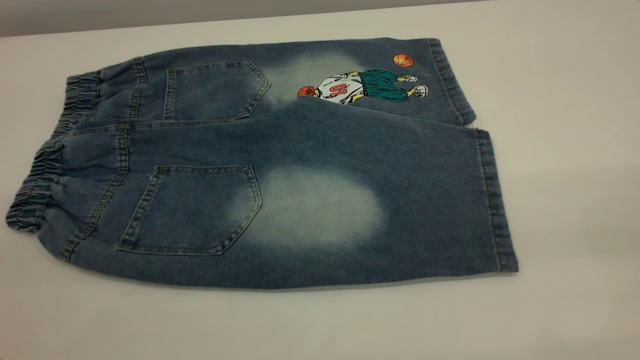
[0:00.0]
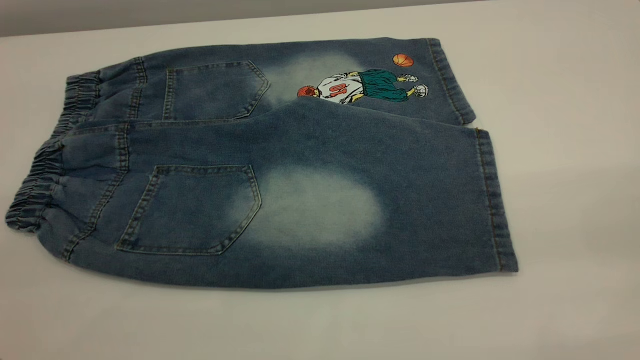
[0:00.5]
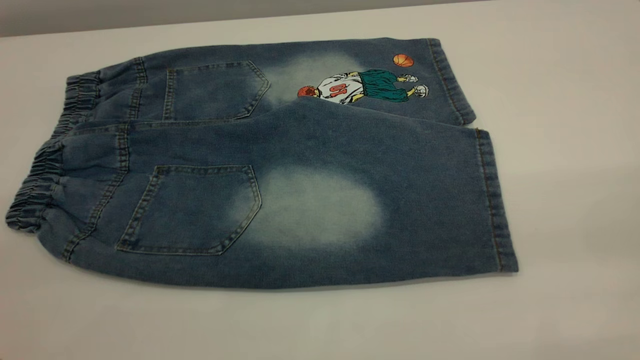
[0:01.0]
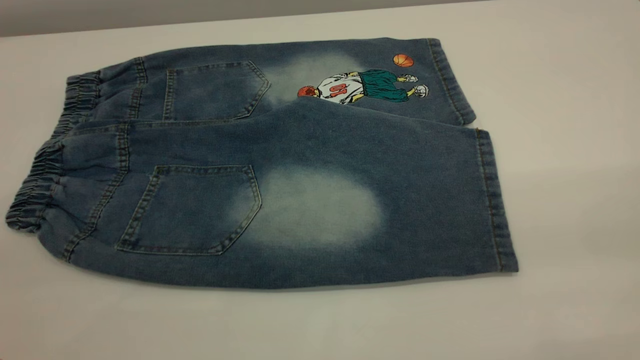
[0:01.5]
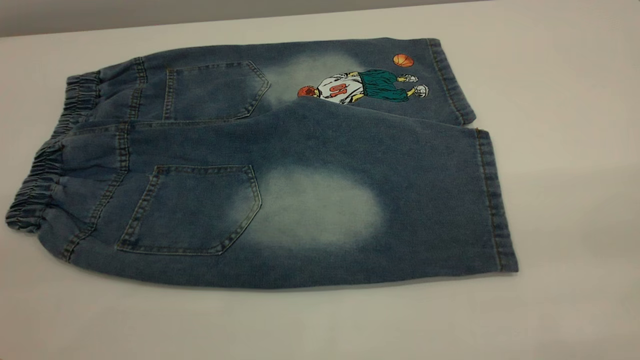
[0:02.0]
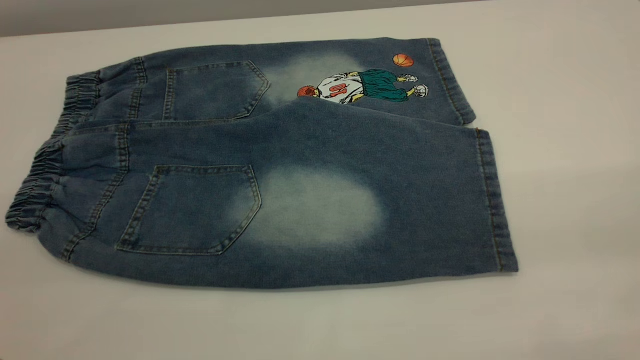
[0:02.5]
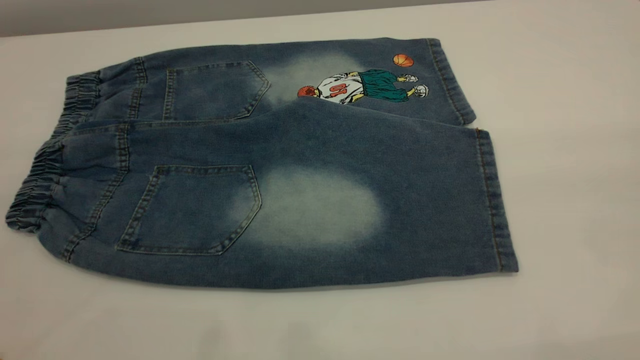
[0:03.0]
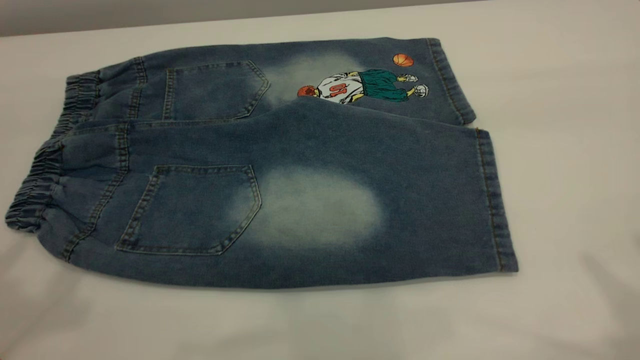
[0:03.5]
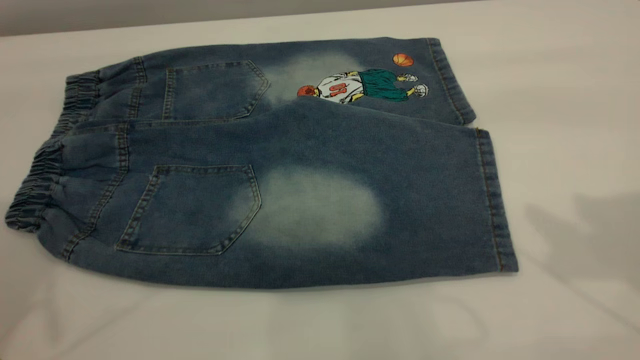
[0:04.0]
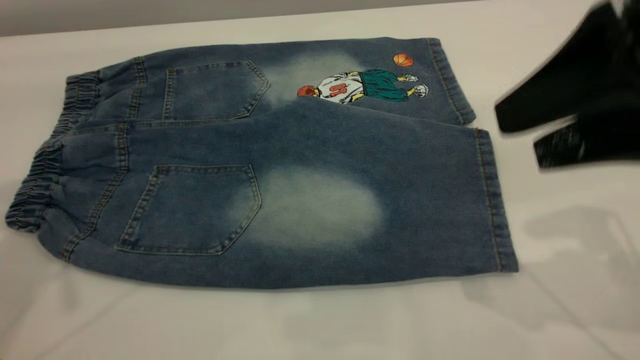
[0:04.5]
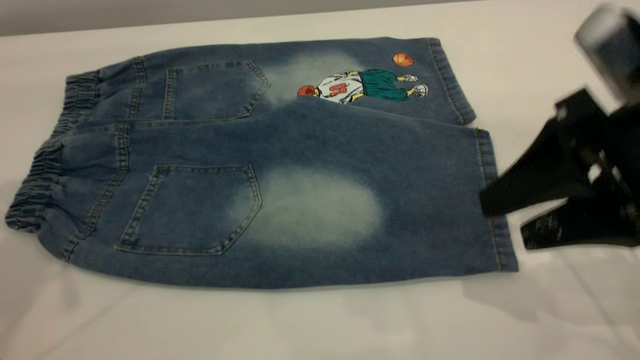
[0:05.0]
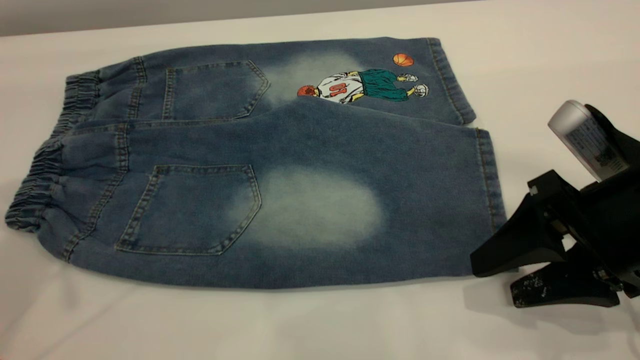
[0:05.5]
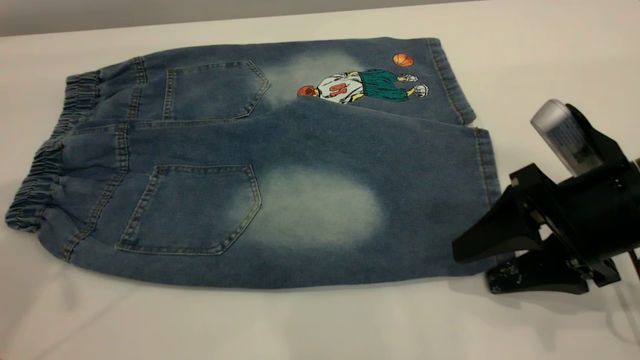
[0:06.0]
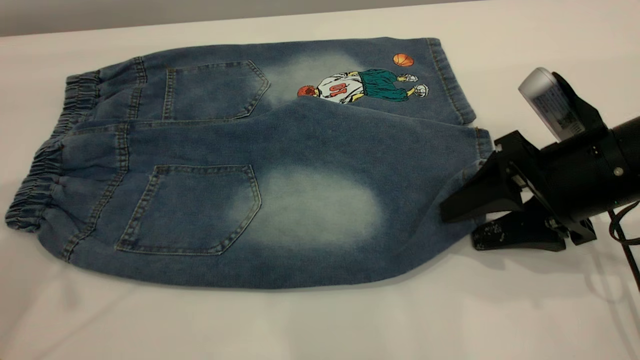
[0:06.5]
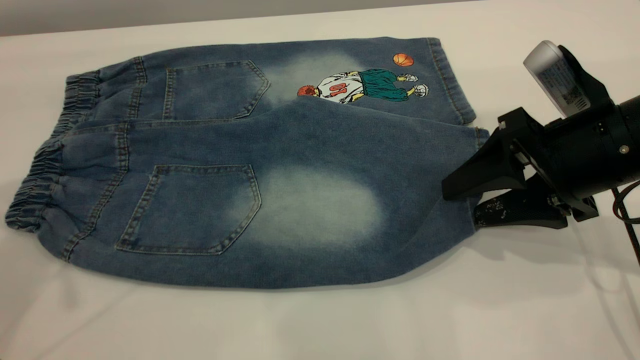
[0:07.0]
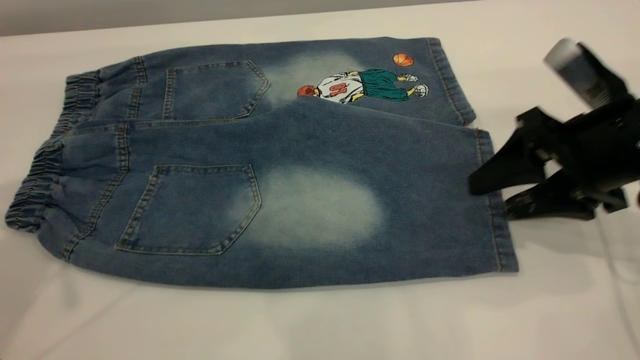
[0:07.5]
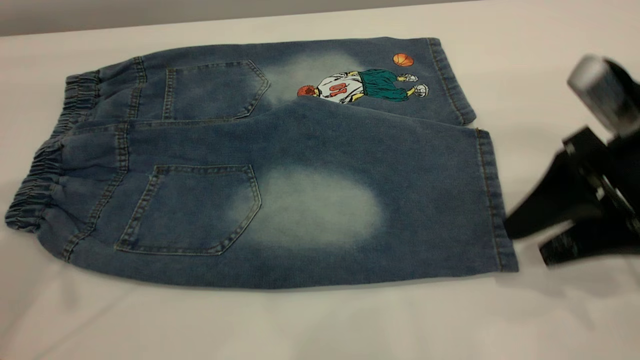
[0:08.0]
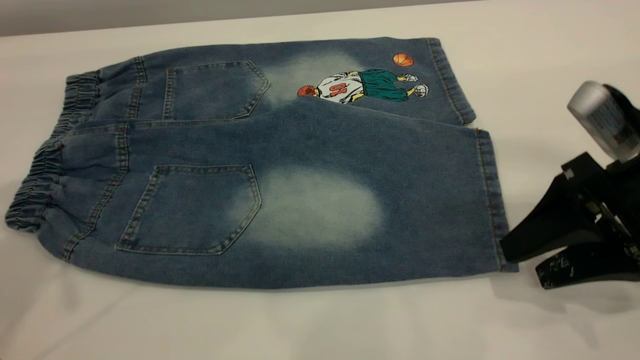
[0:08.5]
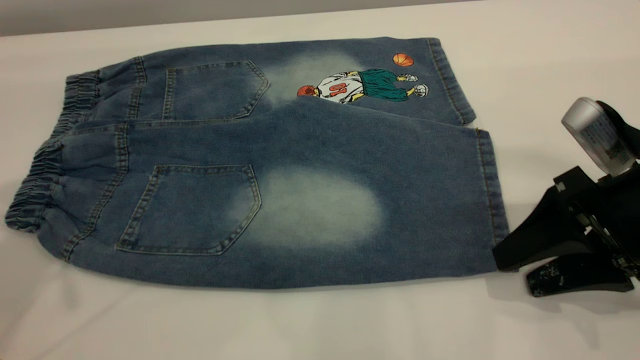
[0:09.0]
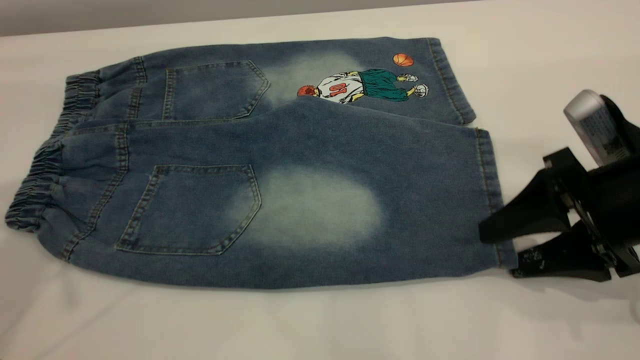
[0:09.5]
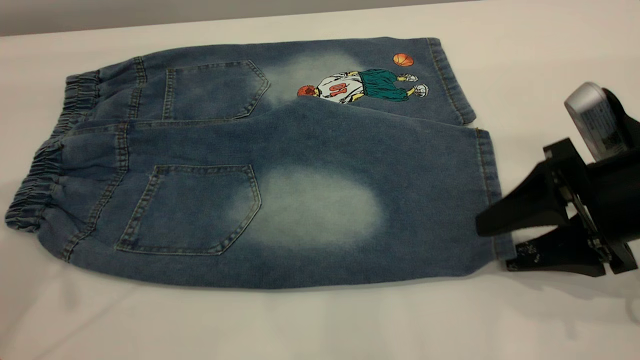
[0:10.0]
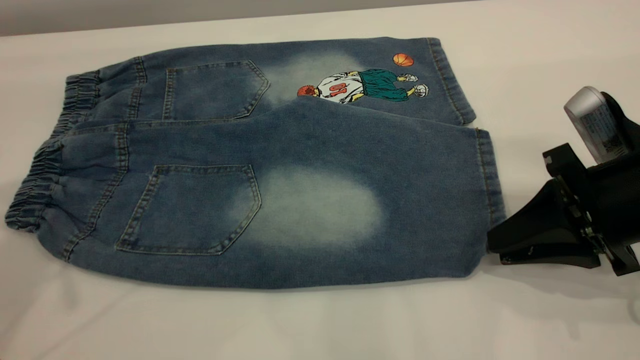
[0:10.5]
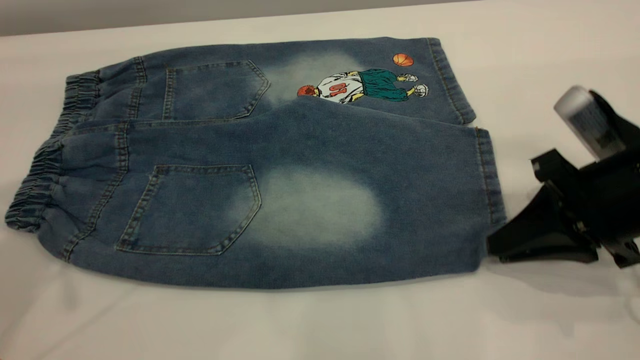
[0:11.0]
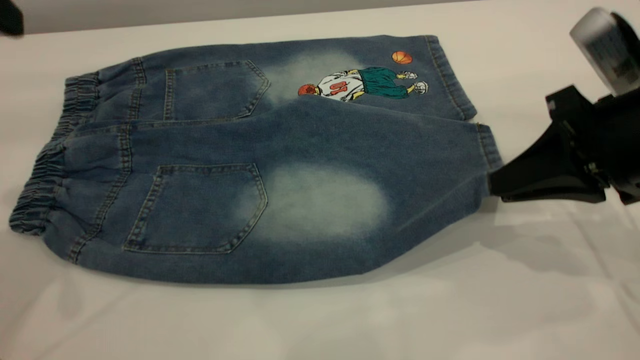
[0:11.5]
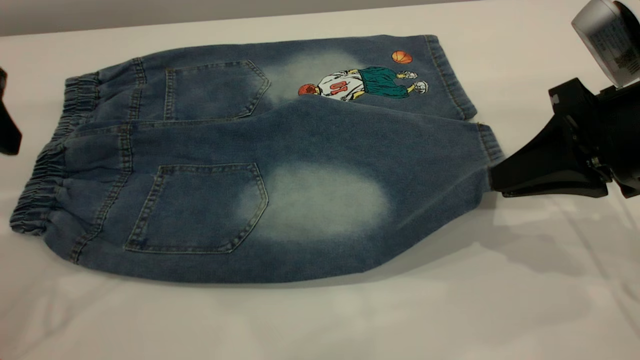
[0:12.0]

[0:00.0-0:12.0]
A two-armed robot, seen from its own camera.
0.0 to 2.0 s: Neither gripper changes place.
4.0 to 6.0 s: The right gripper heads downward, covering some 25 cm.
8.0 to 10.0 s: There are only small adjustments of the grippers.
10.0 to 12.0 s: The right gripper shifts about 5 cm upward, and closes up, while the left gripper travels downward by about 10 cm.

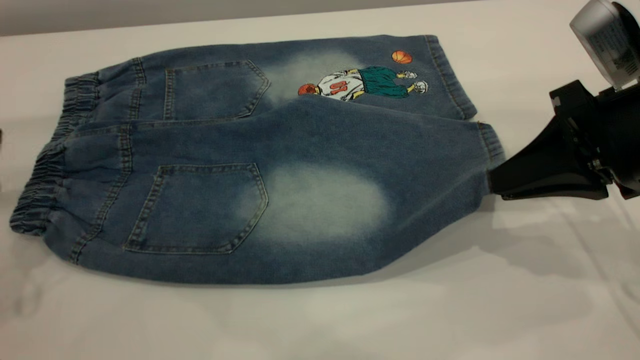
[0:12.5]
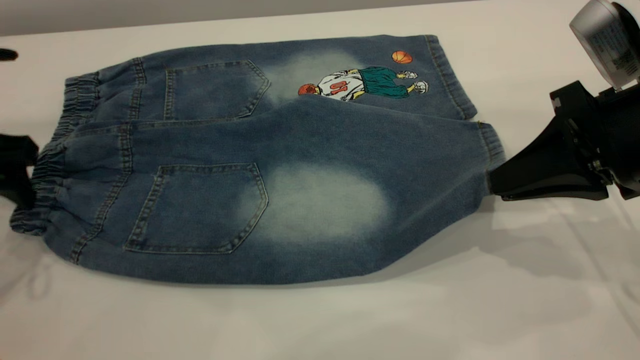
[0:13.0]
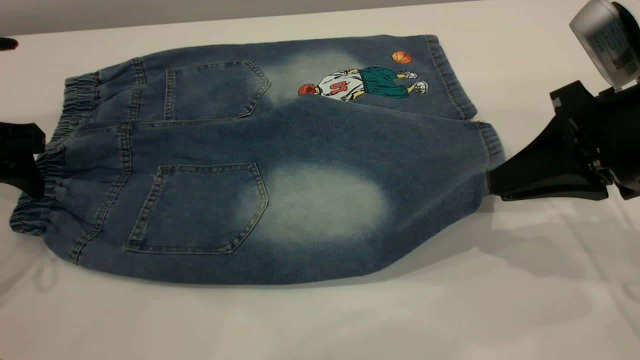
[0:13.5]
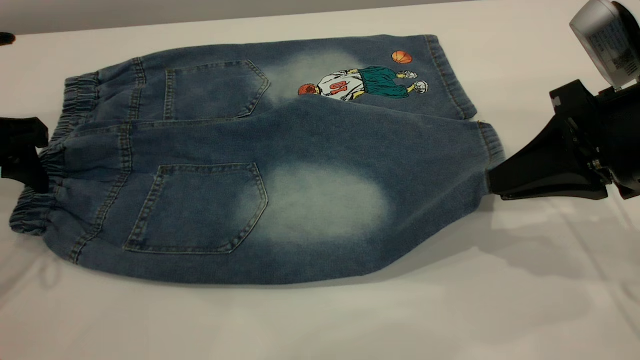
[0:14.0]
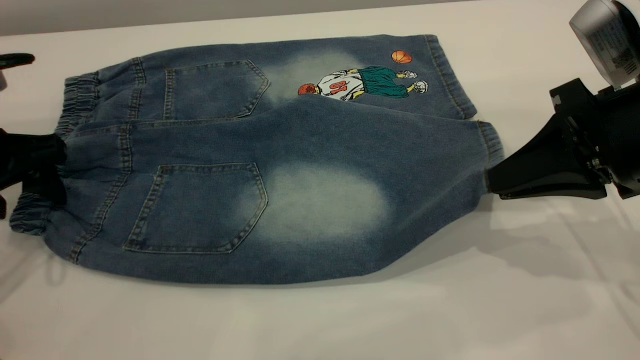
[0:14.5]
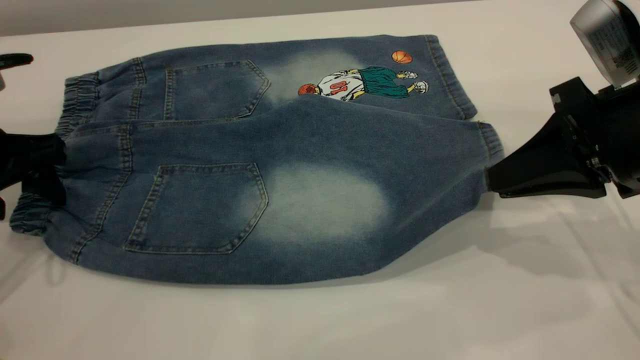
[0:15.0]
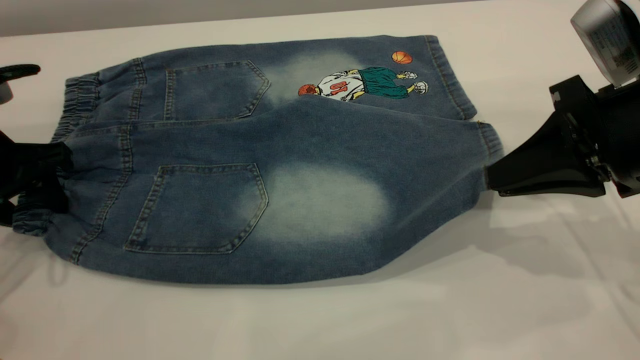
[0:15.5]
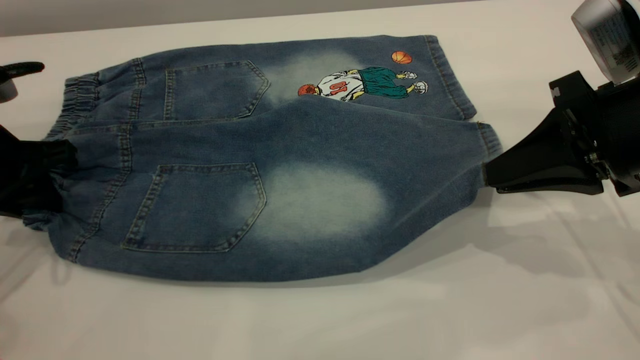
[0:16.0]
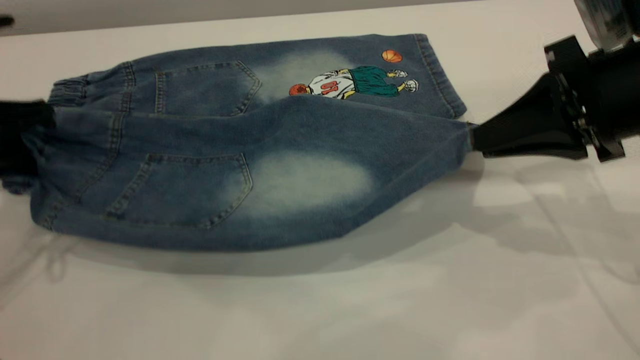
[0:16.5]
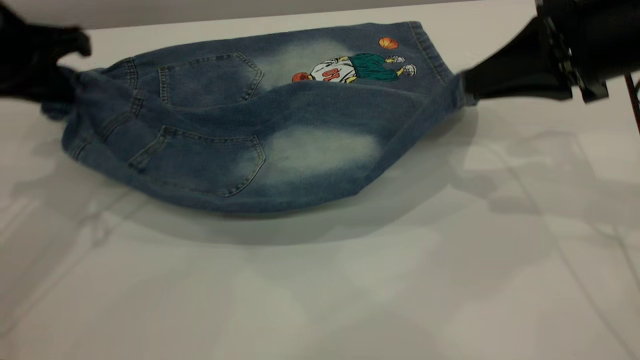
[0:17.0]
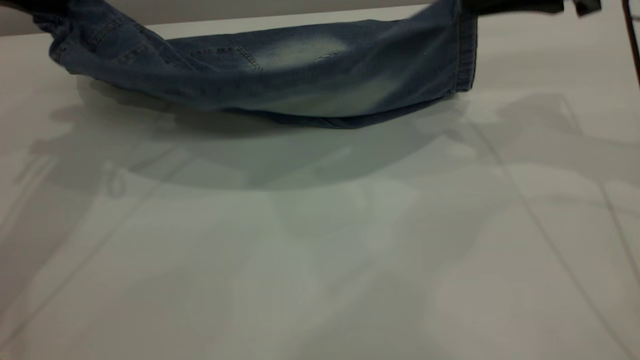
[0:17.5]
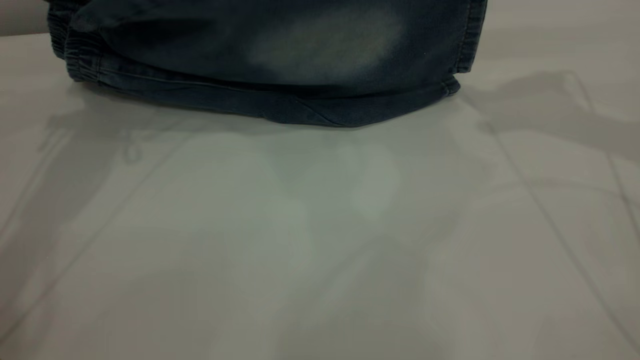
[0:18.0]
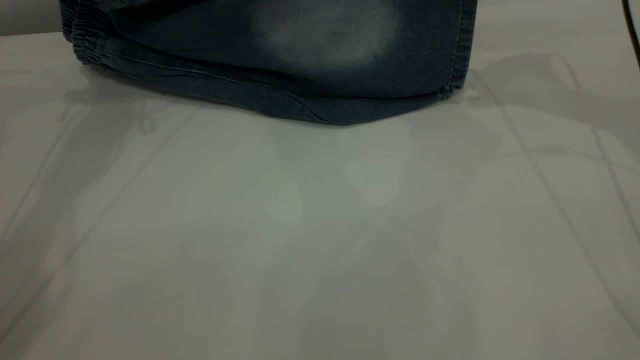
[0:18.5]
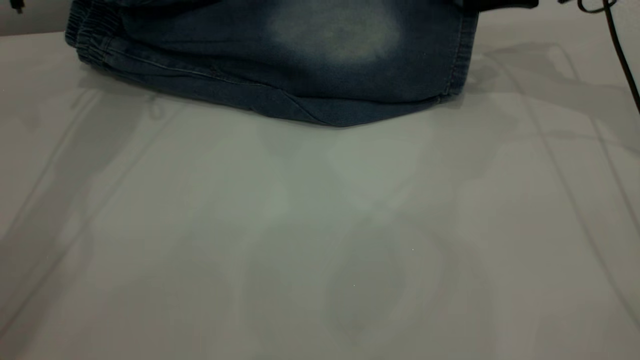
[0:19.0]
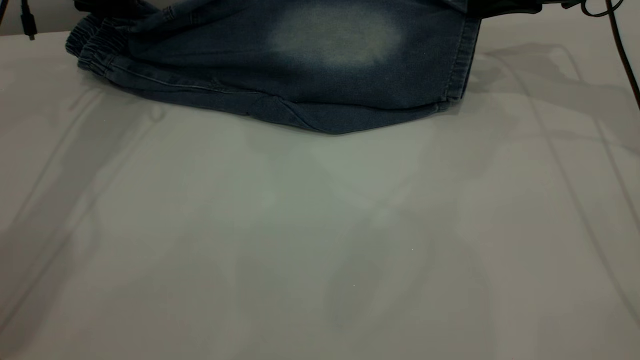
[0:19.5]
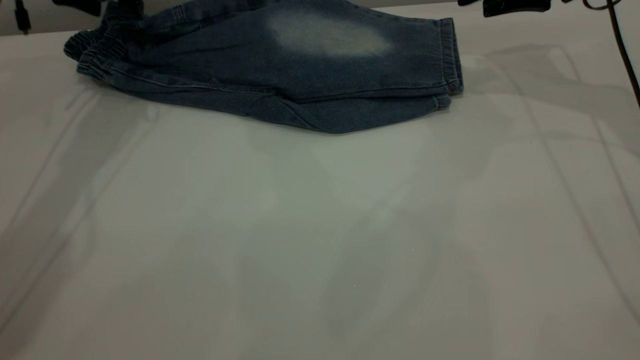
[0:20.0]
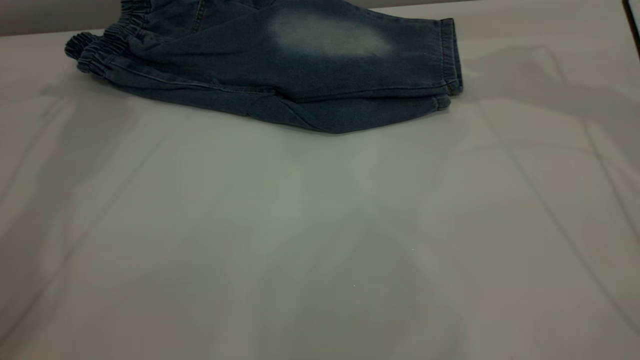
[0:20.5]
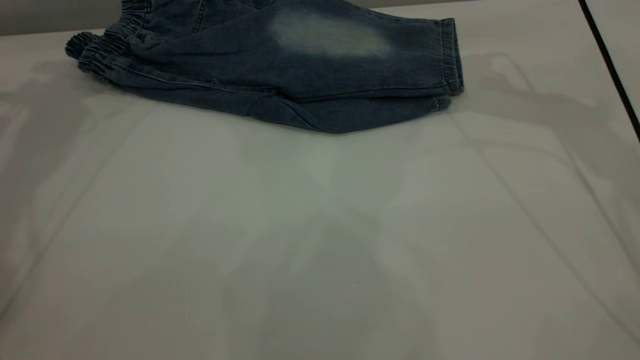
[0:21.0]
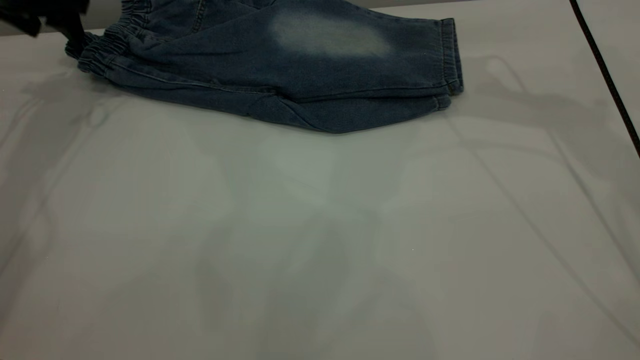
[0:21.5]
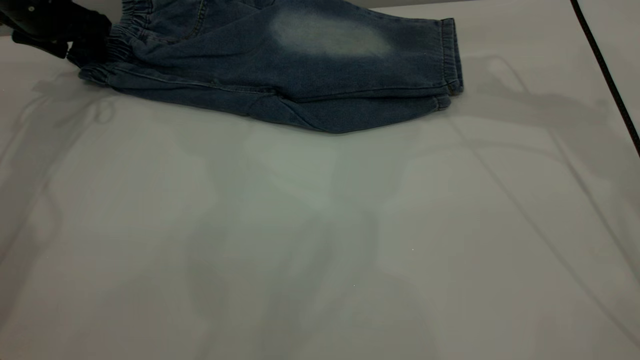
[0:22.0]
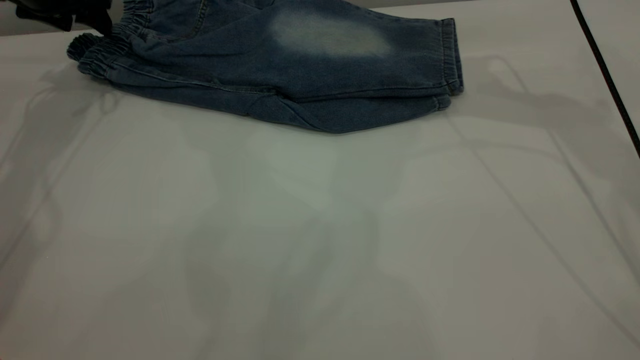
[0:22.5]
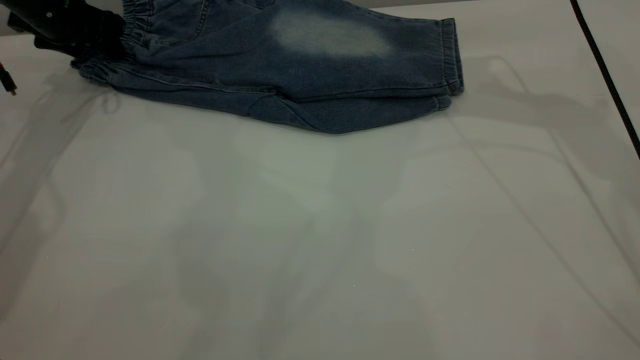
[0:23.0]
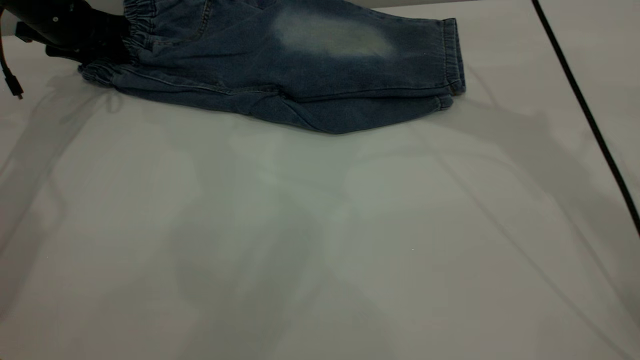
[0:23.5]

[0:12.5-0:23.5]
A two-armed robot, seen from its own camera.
Step, 12.5 to 21.0 s: Fold the bottom of the pants upward.
12.5 to 14.5 s: The left gripper is displaced downward by approximately 5 cm.
14.5 to 16.0 s: The left gripper closes its fingers.
16.0 to 18.0 s: The grippers both shift forward and upward by roughly 20 cm.
18.0 to 20.0 s: Both grippers travel together forward and downward, about 10 cm. The left gripper opens up; the right gripper opens up.
20.0 to 21.5 s: The grippers both shift to the left by about 5 cm. The left gripper travels upward and back again, approximately 5 cm each way.
21.5 to 23.5 s: The left gripper shifts about 5 cm downward; the right gripper moves to the left, some 5 cm.
